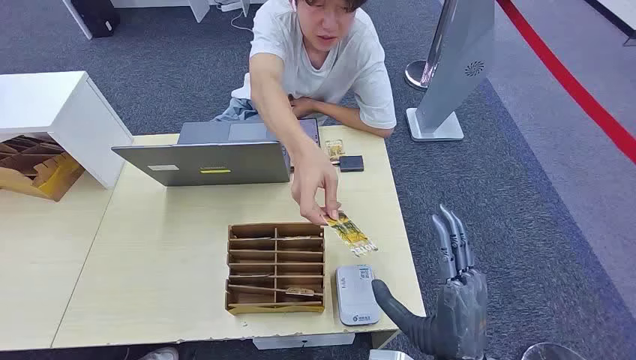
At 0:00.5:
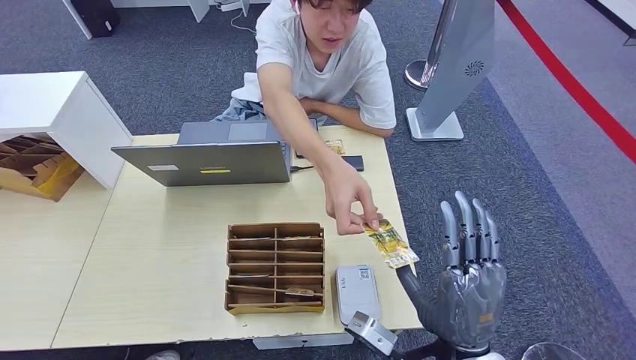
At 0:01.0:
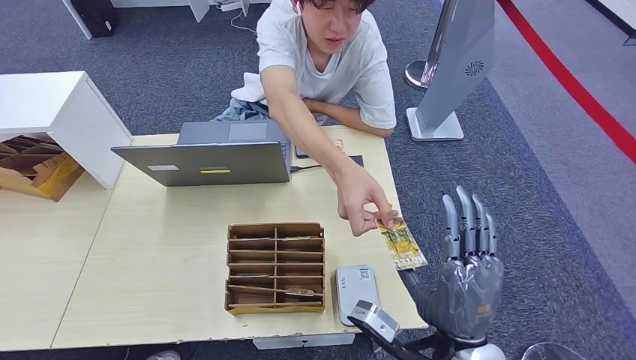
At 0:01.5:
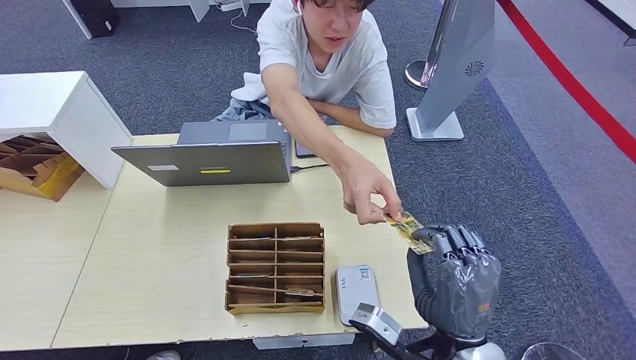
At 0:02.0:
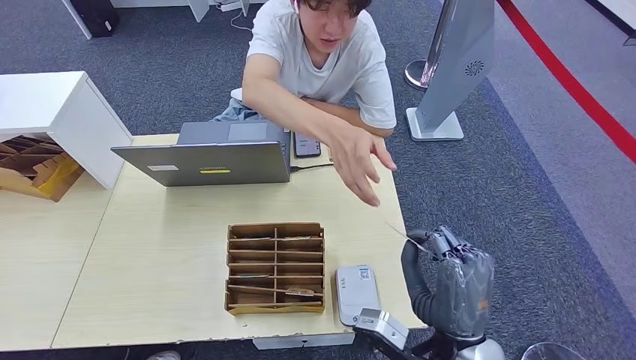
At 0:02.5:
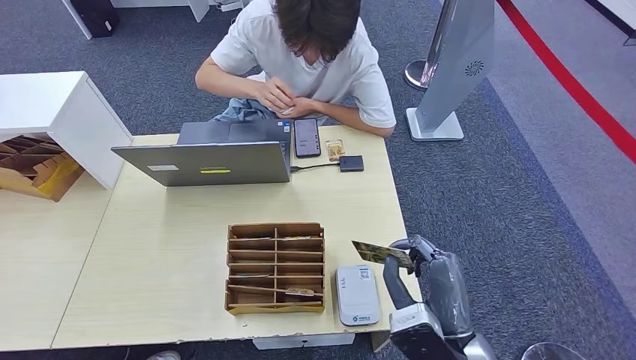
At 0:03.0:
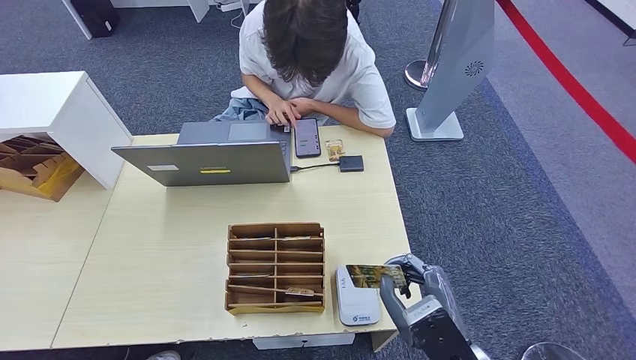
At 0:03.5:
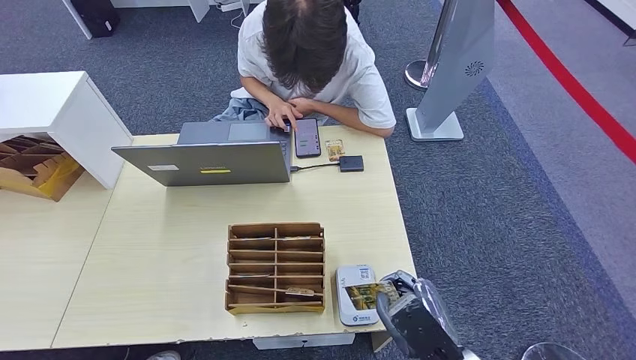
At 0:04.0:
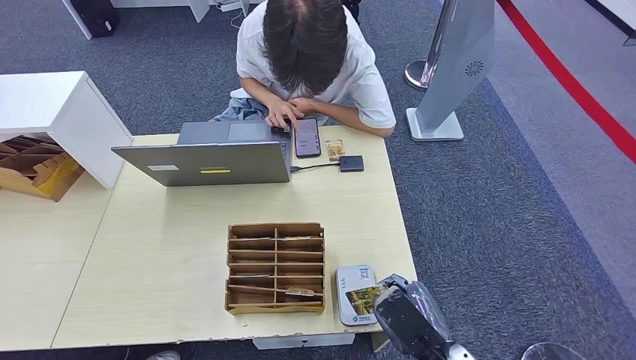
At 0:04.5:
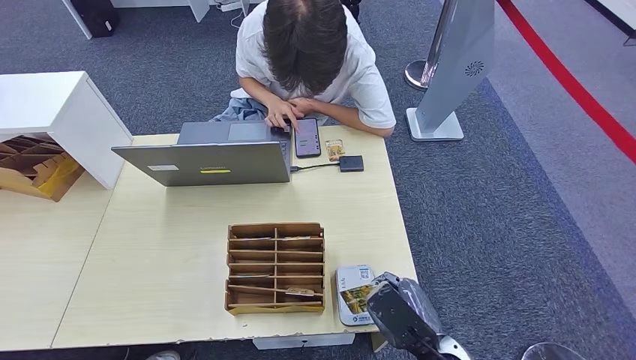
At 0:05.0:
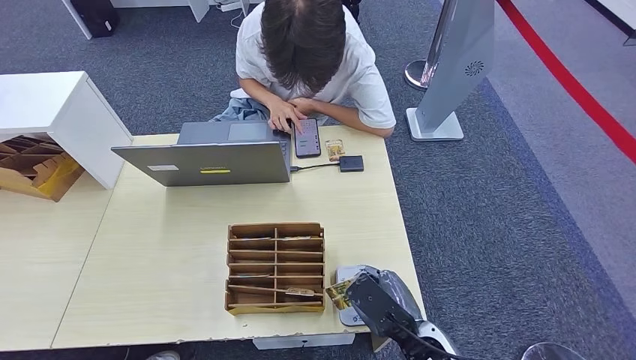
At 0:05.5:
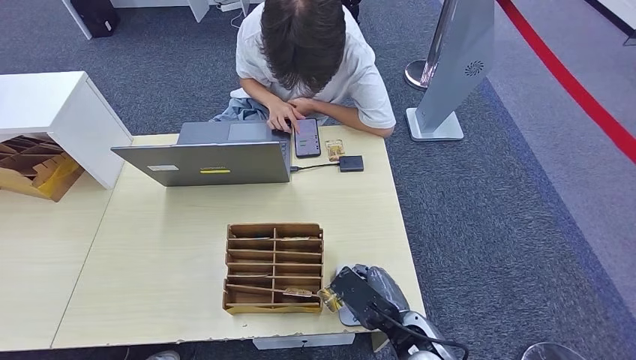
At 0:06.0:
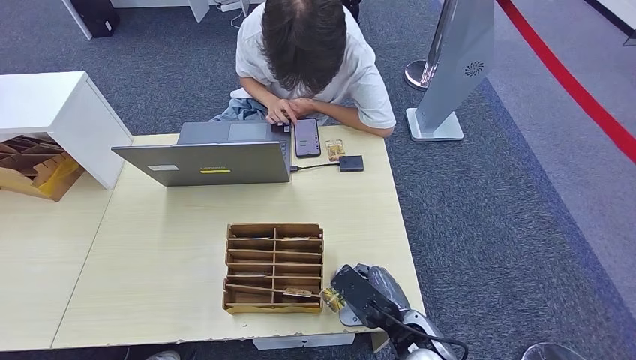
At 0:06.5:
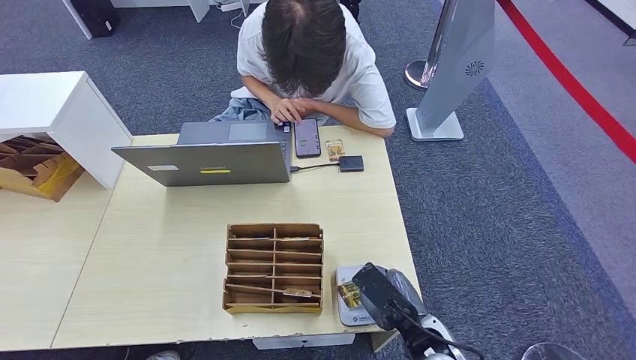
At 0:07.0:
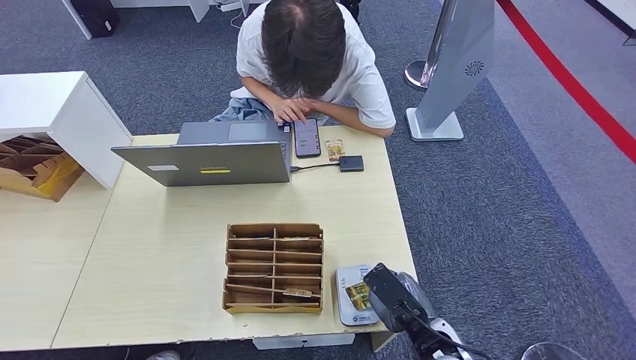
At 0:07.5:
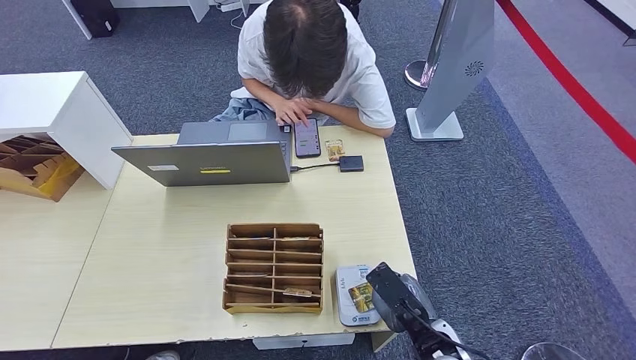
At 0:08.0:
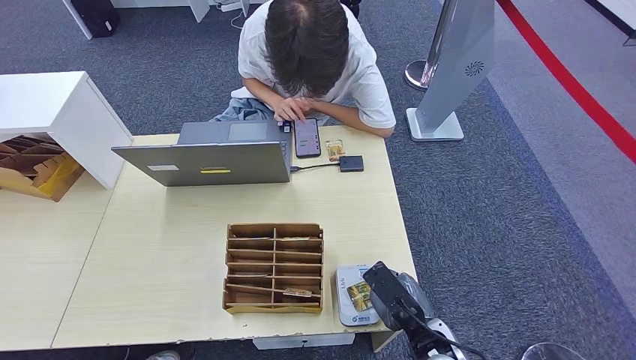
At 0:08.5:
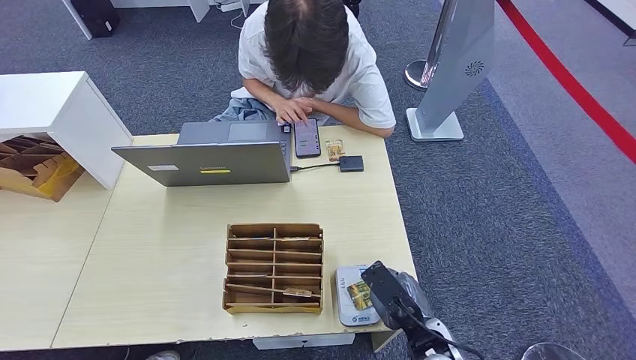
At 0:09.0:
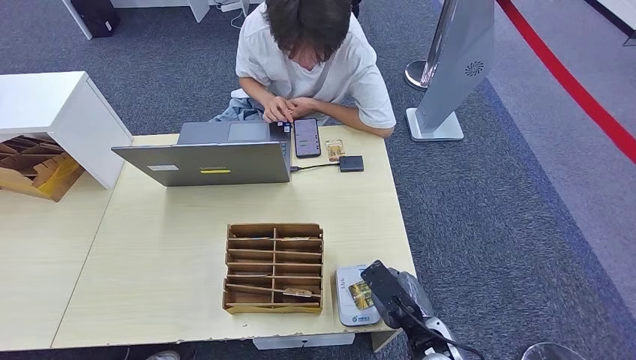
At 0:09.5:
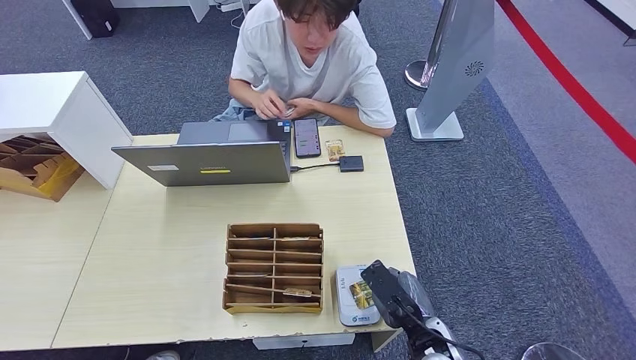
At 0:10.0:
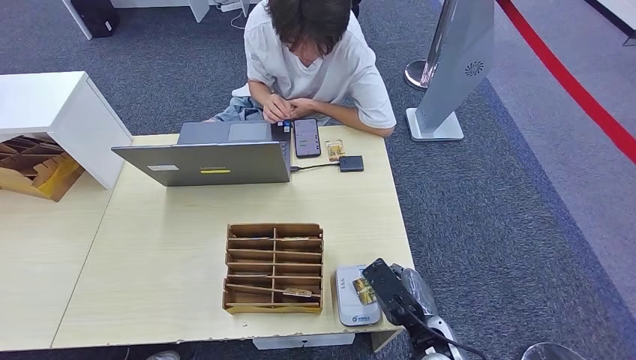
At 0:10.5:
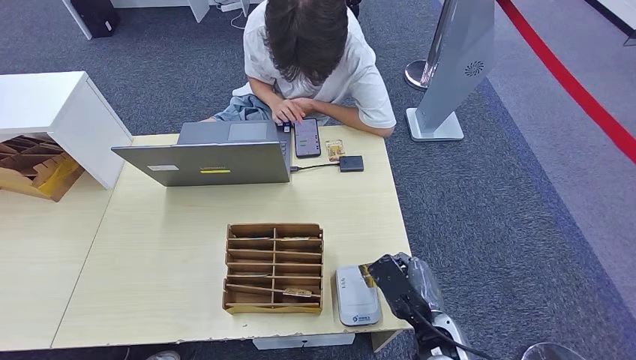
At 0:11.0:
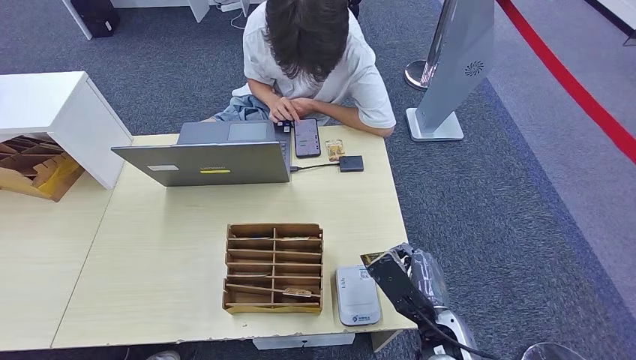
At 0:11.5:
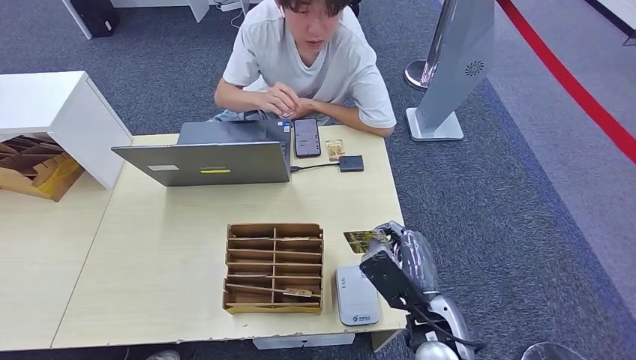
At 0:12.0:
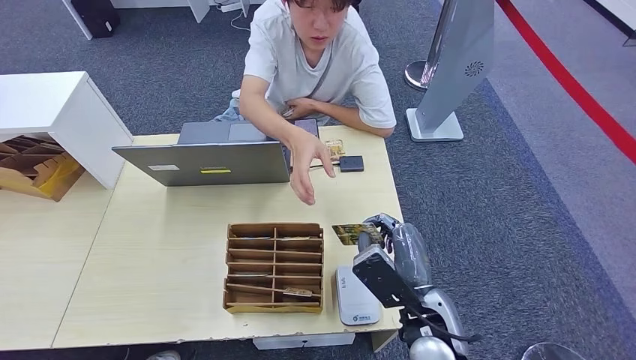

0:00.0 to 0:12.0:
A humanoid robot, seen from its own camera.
Step, 0:00.0 to 0:01.5: Take the ID card from the person's hand.
Step, 0:02.0 to 0:09.5: Place the ID card on the card reader.
0:02.0 to 0:04.0: The right hand is displaced downward by roughly 5 cm.
0:04.0 to 0:06.0: The right hand moves forward, some 5 cm.
0:06.0 to 0:10.0: There are only small adjustments of the hands.
0:10.0 to 0:12.0: The right hand is displaced upward by about 5 cm, while the left hand shifts approximately 15 cm to the left and backward.

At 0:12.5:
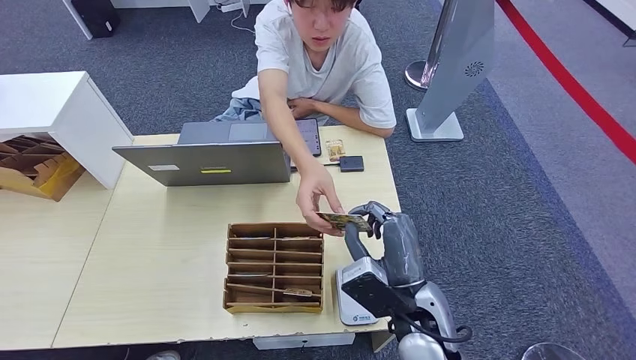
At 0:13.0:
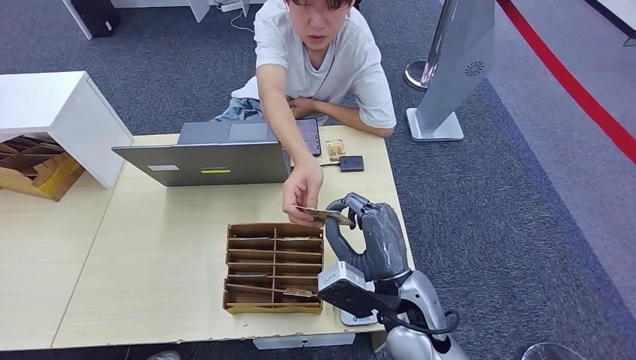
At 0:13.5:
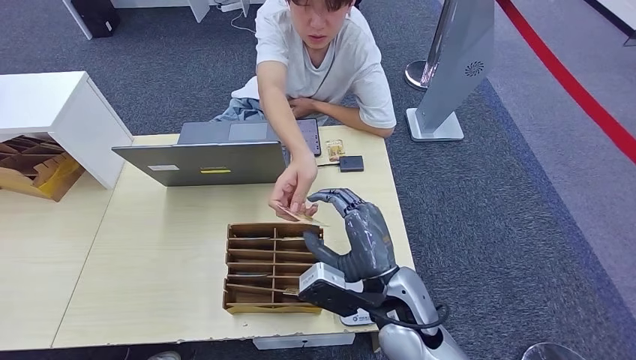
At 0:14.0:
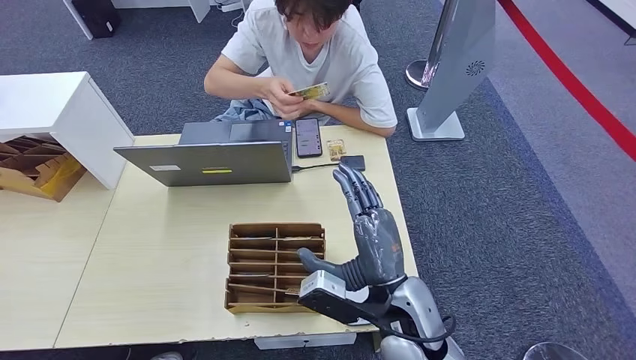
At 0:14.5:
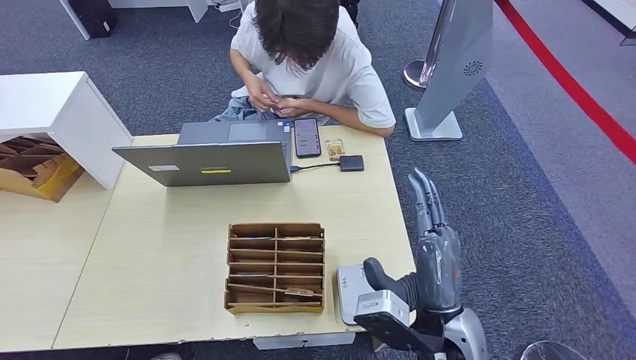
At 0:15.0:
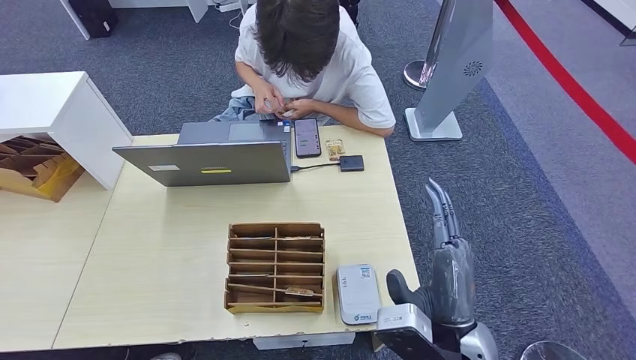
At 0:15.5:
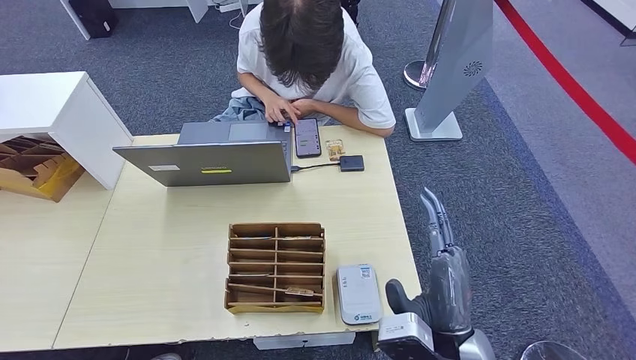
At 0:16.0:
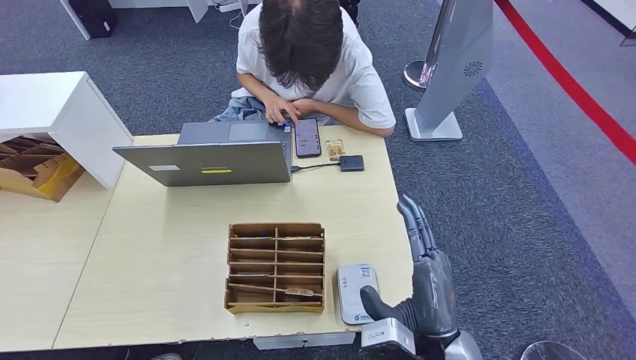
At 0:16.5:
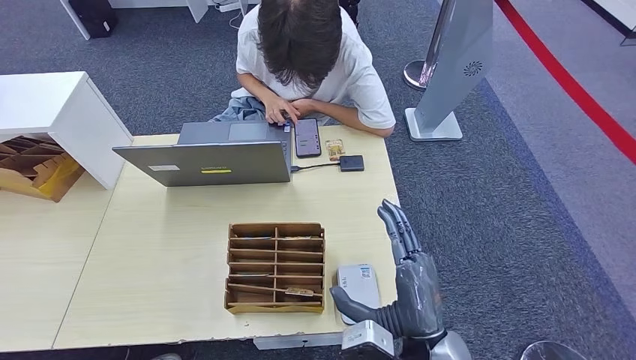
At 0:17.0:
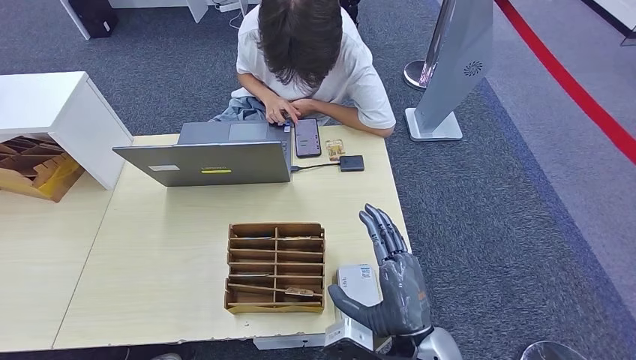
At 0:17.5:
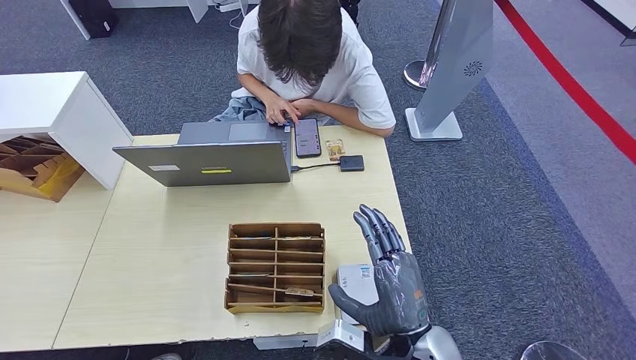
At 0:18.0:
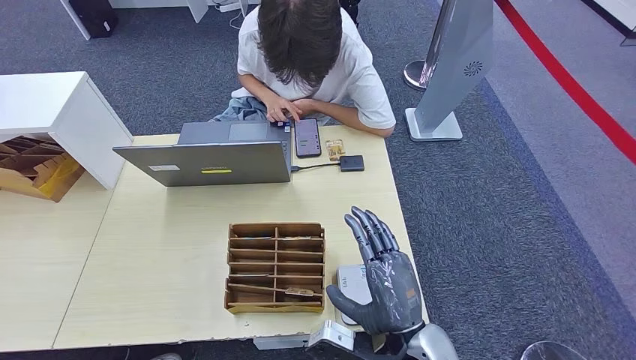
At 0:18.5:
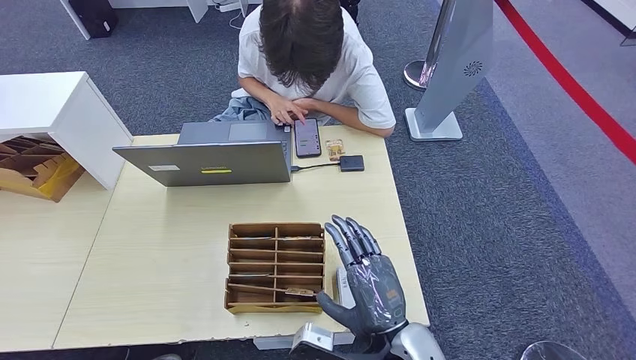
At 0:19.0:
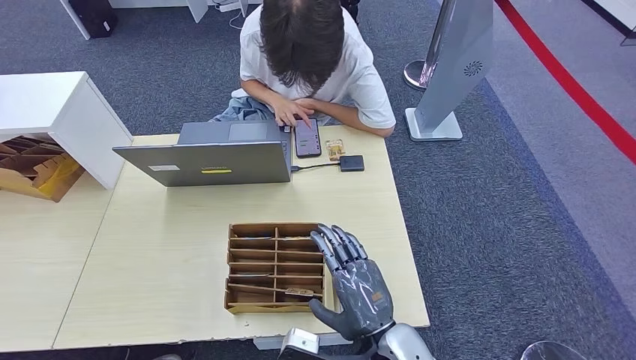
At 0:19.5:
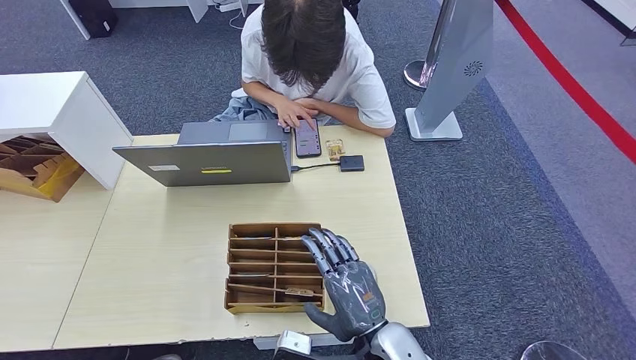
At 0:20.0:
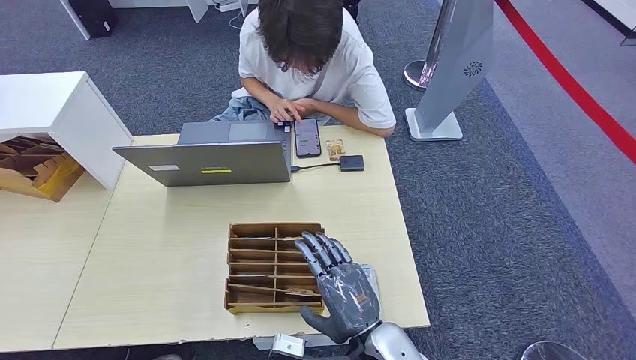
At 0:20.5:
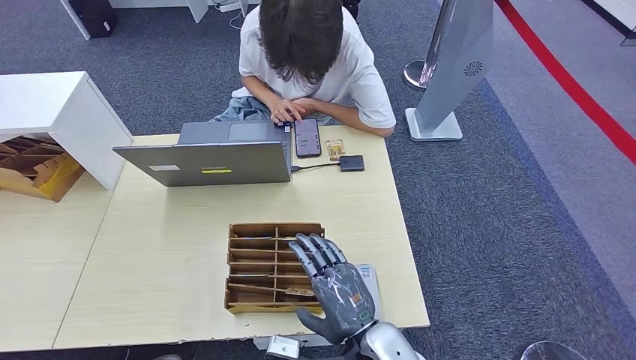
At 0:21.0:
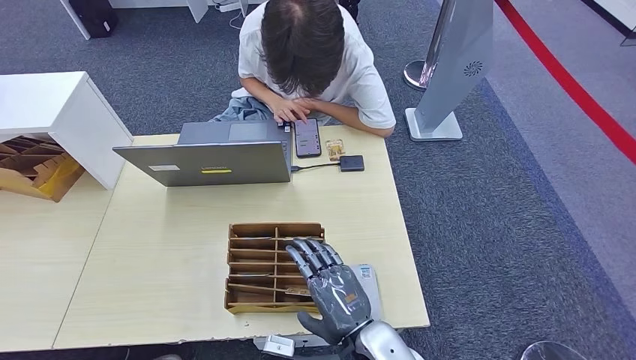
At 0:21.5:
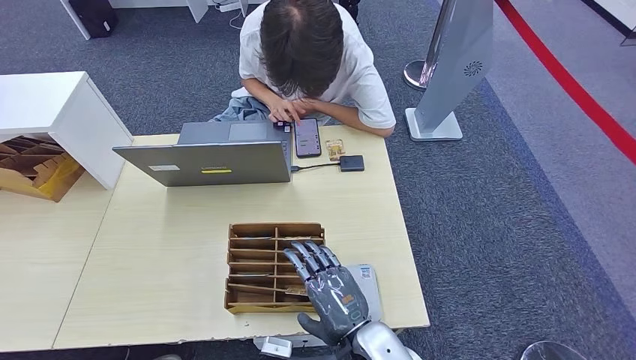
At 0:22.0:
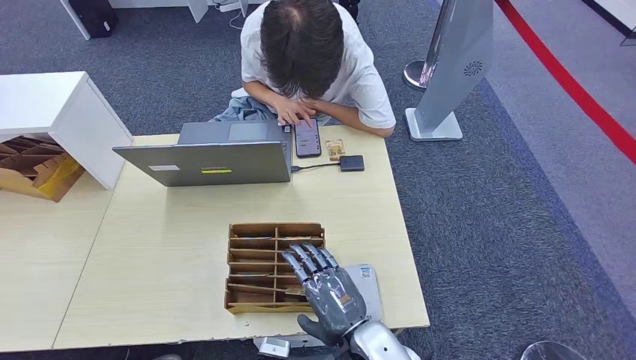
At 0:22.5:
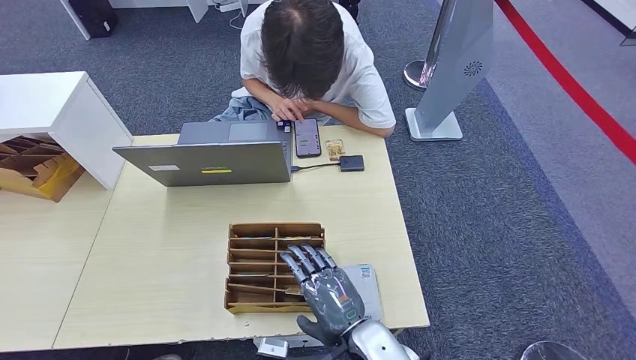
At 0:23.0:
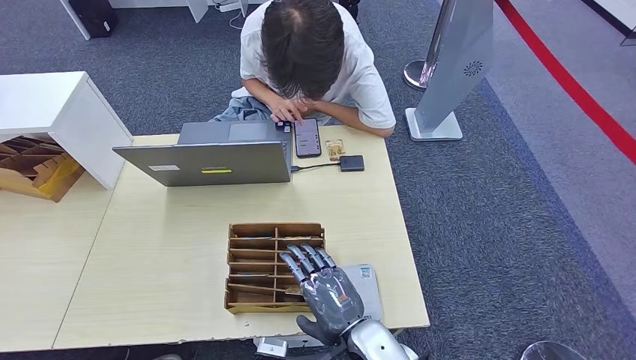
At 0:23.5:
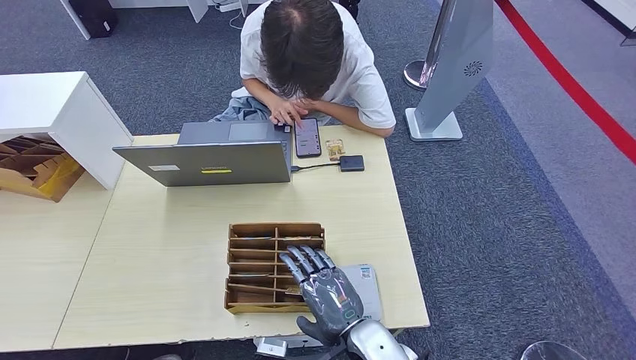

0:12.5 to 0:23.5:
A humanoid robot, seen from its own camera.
0:12.5 to 0:14.5: The right hand changes place by approximately 5 cm. The left hand is displaced to the right and forward by about 15 cm.
0:14.5 to 0:18.0: The hands stay close to where they were, moving slightly.
0:18.0 to 0:20.0: The hands make only small movements.
0:20.0 to 0:21.5: The hands move only a little.
0:21.5 to 0:23.5: Neither hand changes place.
